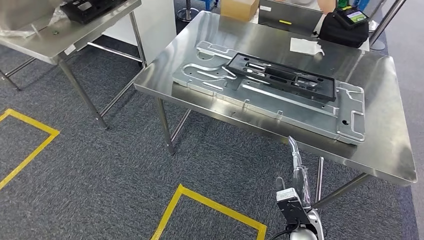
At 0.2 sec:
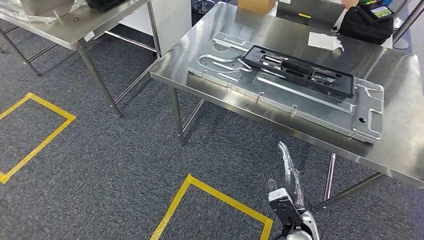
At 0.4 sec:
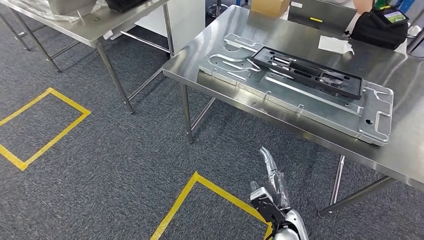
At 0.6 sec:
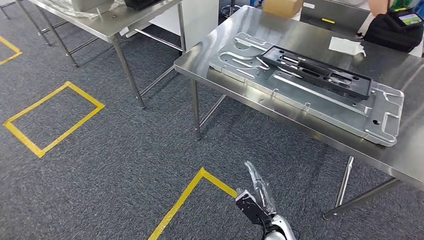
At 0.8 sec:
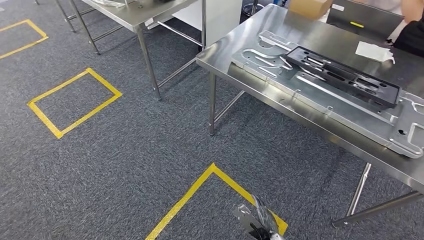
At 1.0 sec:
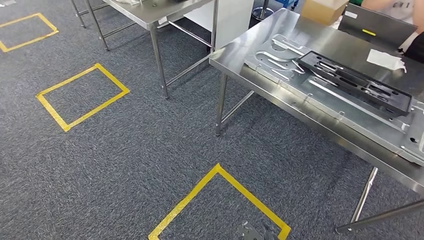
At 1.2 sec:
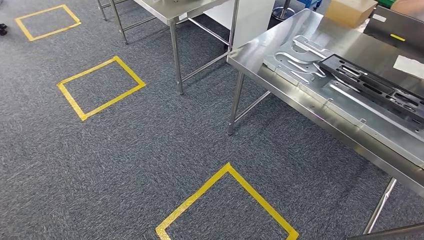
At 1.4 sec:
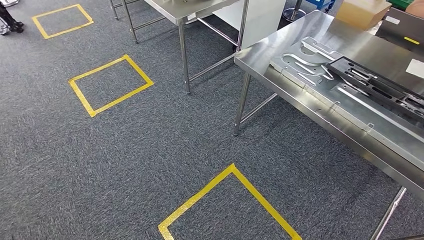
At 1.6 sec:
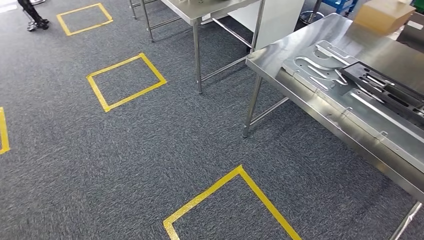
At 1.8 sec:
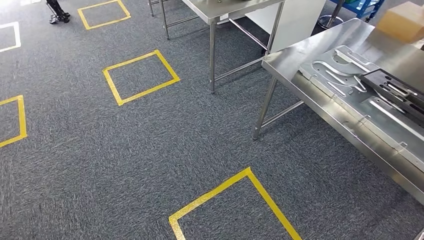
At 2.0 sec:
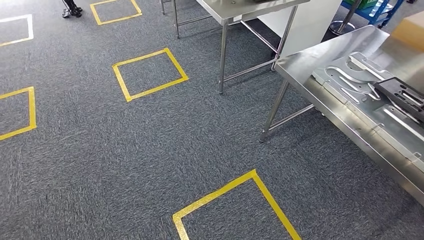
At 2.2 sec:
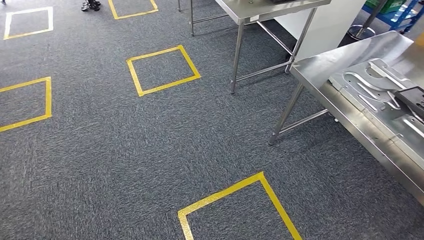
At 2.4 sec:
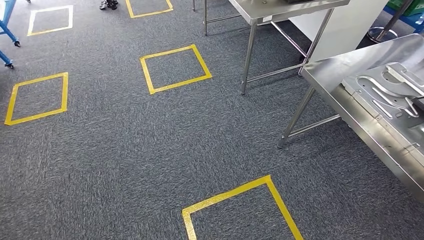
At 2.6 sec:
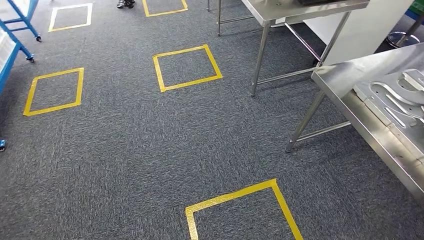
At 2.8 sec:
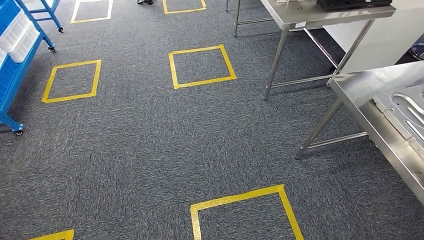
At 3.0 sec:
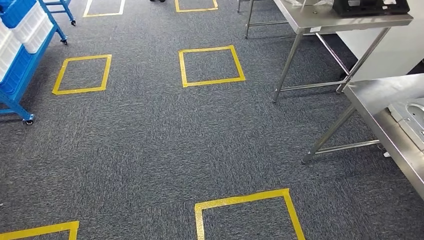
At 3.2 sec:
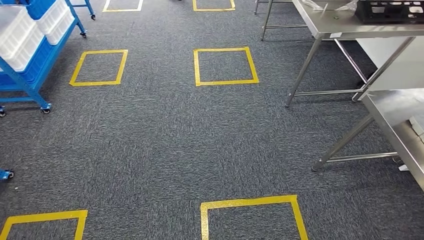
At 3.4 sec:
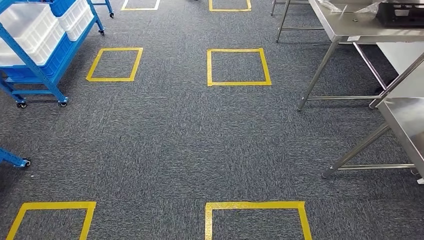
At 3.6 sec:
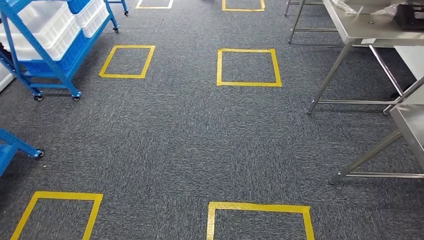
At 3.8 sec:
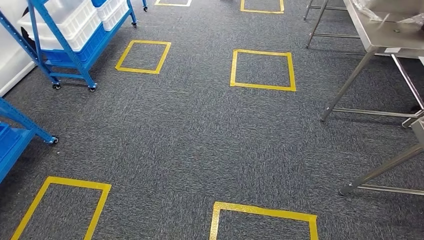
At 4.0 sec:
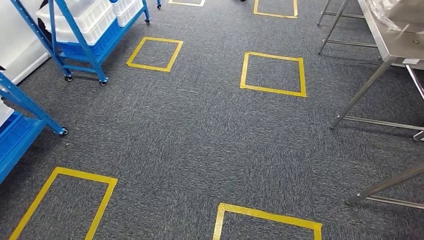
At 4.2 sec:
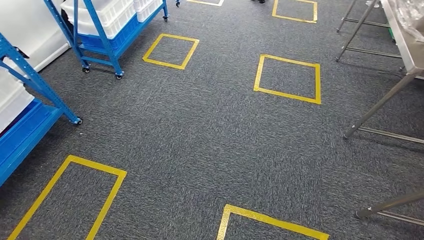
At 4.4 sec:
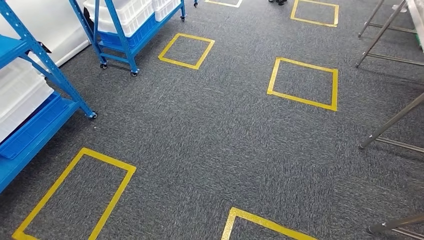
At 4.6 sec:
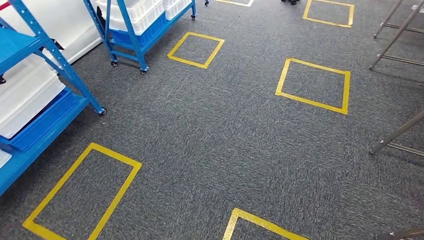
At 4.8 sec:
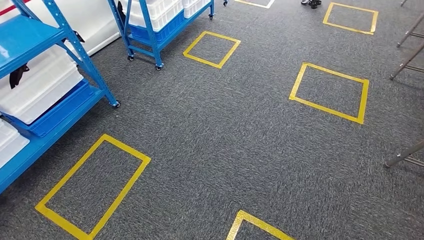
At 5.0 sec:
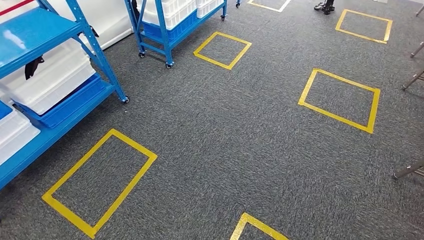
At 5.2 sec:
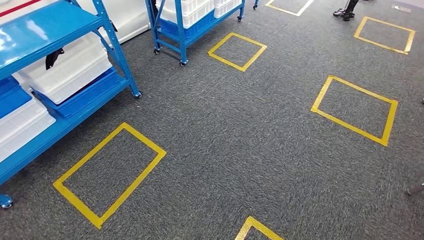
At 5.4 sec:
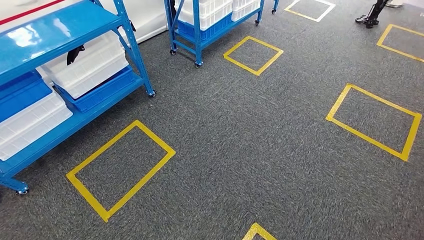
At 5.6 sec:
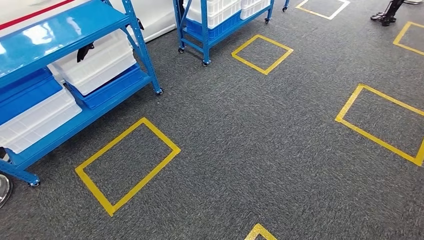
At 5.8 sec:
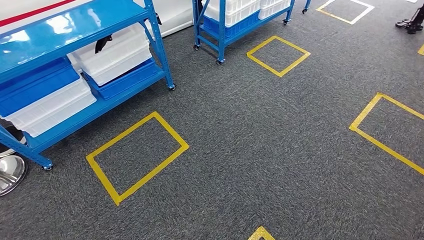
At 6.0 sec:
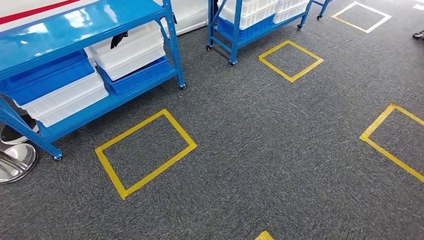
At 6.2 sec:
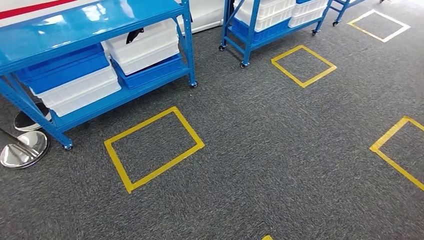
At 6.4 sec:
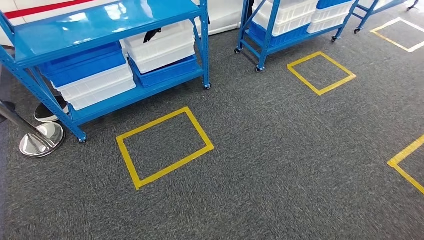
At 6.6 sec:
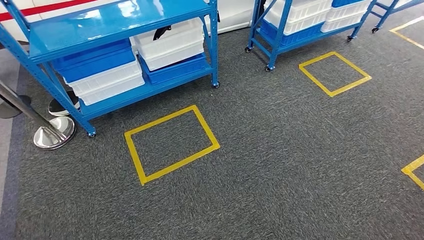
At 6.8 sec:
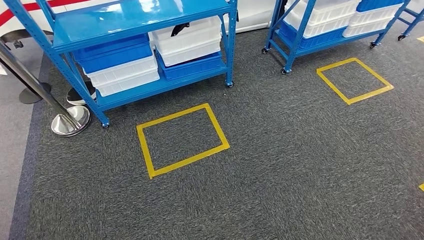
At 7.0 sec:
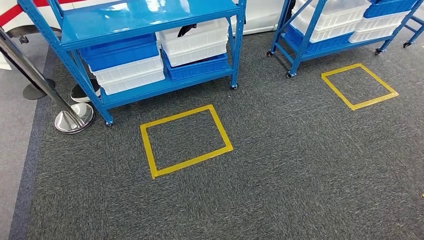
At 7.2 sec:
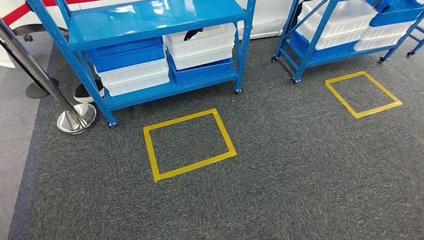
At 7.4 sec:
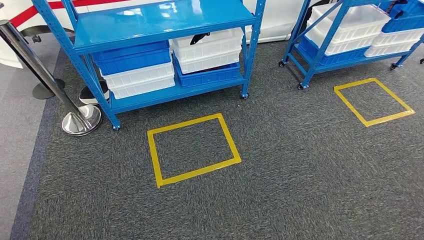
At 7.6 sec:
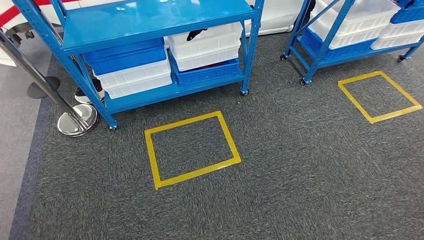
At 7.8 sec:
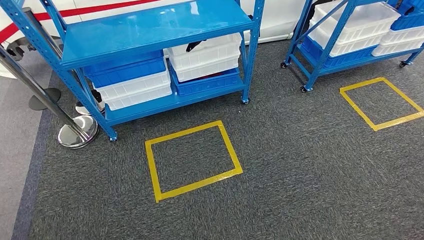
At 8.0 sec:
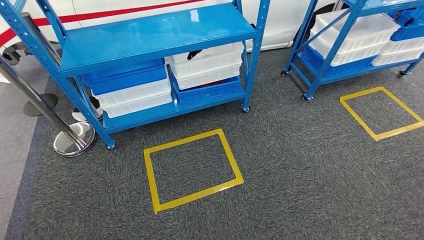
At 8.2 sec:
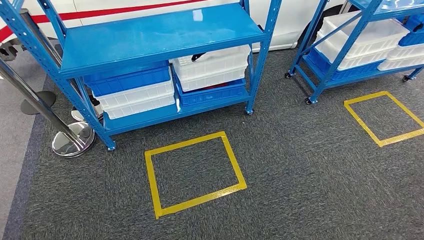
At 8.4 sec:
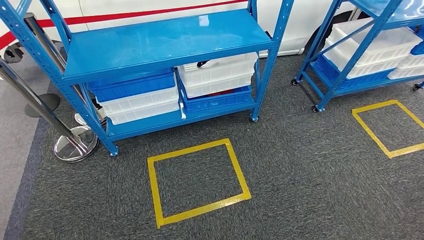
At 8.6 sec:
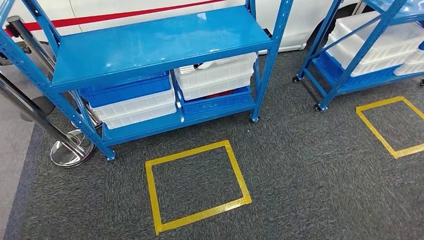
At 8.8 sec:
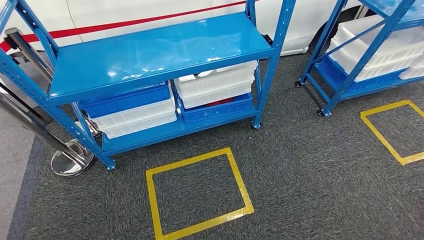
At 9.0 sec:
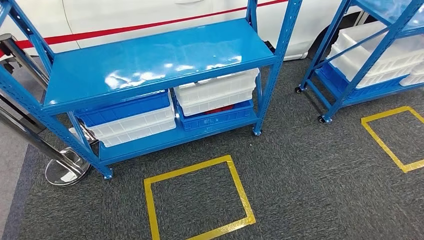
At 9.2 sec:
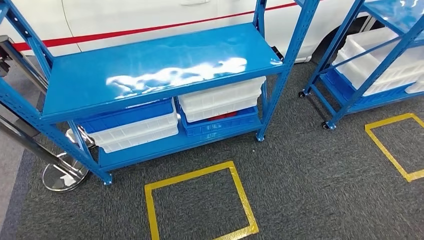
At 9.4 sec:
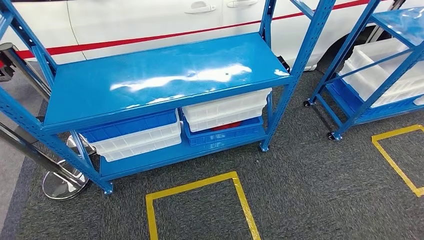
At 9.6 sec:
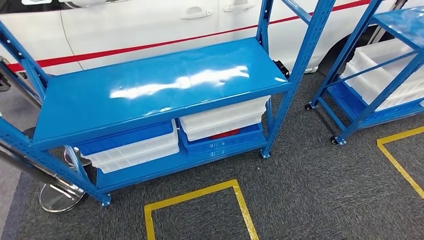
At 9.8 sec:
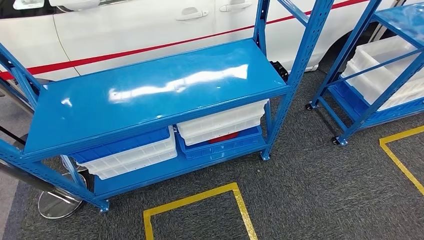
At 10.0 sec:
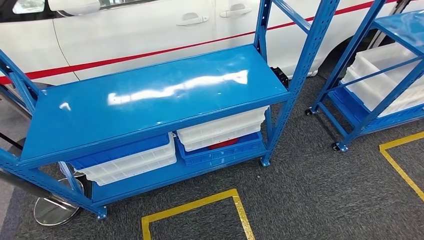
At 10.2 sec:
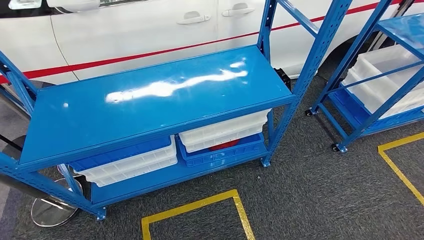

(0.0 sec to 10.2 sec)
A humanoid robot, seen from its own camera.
Step, 1.4 sec - 10.2 sec: Move to the initial position of the shelf.
